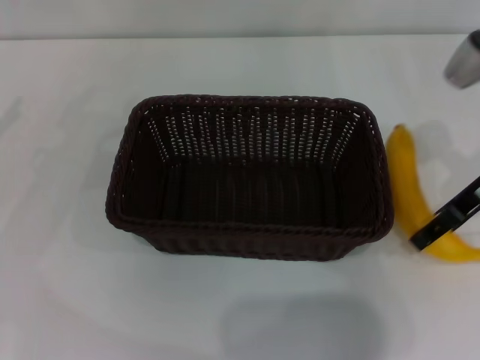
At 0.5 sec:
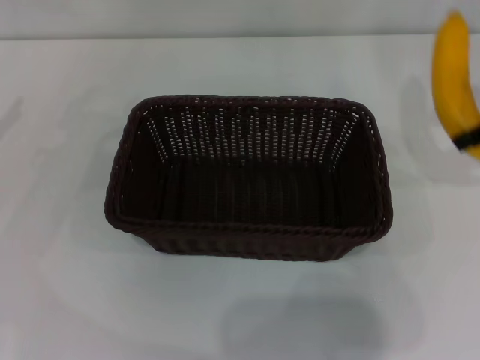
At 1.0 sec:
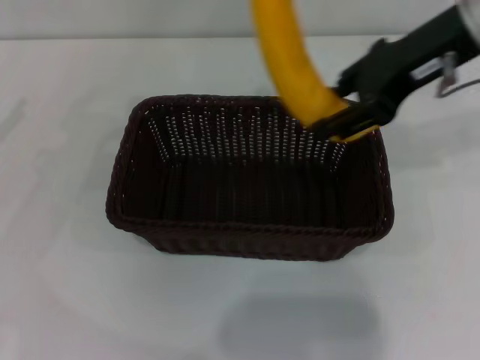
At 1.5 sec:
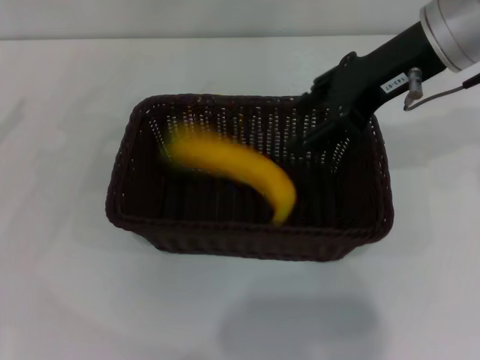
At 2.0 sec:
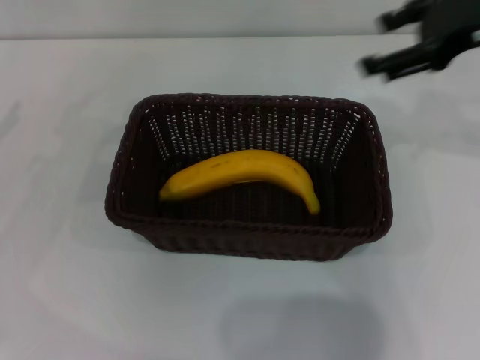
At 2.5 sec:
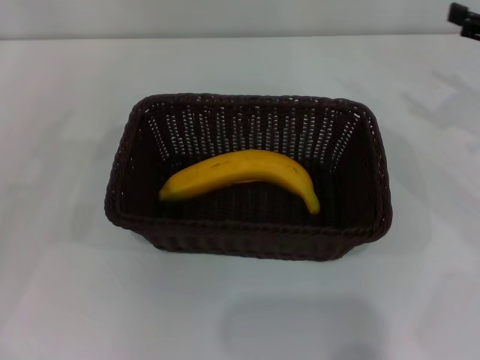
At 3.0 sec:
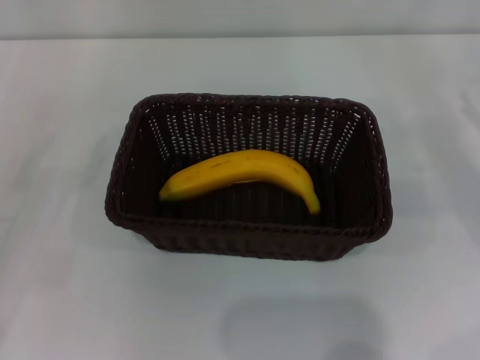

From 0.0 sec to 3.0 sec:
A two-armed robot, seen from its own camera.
Step, from 0.5 sec to 1.5 sec: Place the banana into the dark basket with the right gripper.
From 0.0 sec to 1.5 sec: The right gripper moves upward and to the left, roughly 15 cm.
From 1.5 sec to 3.0 sec: The right gripper shifts about 25 cm to the right and downward, and opens up, while the left gripper heads backward and downward, covering approximately 10 cm.
